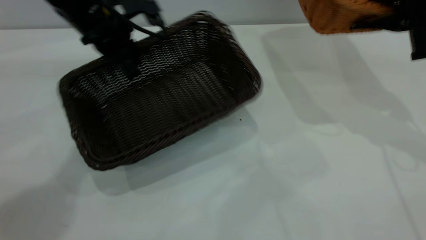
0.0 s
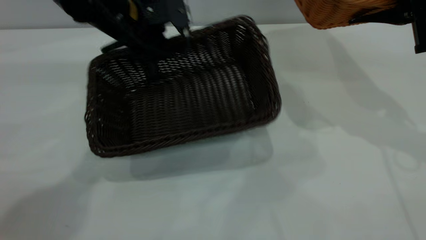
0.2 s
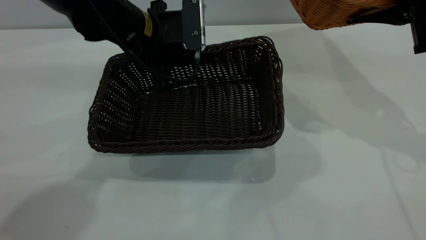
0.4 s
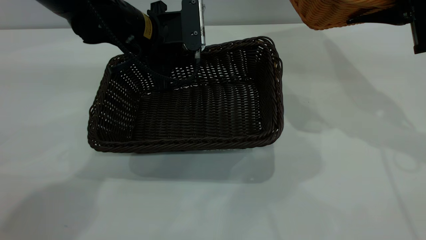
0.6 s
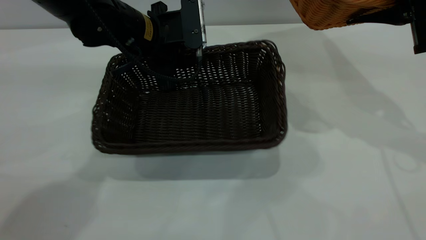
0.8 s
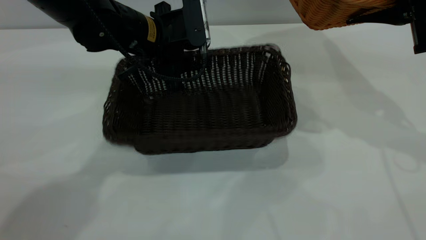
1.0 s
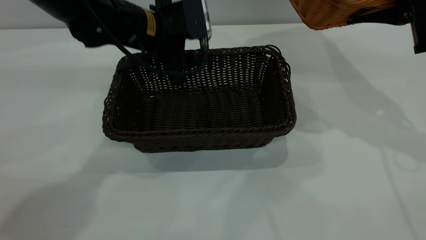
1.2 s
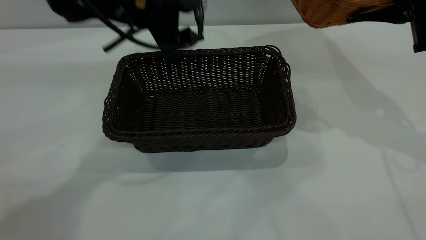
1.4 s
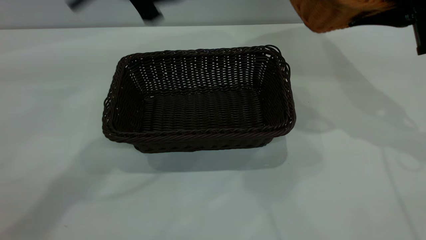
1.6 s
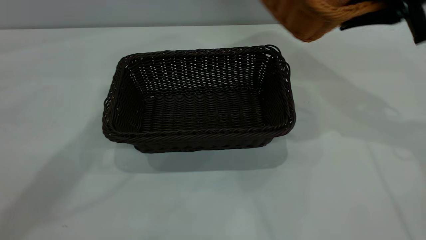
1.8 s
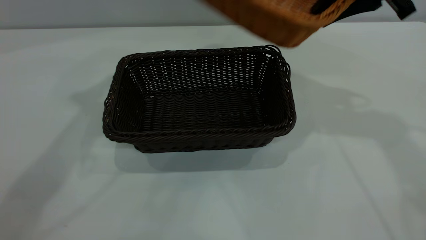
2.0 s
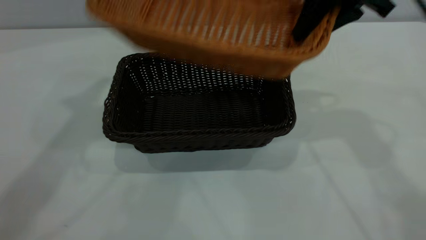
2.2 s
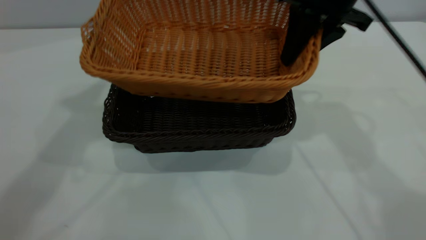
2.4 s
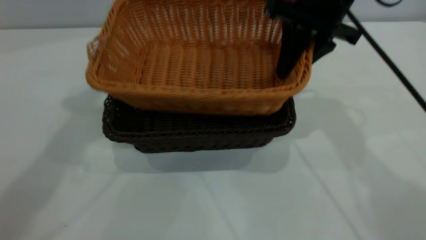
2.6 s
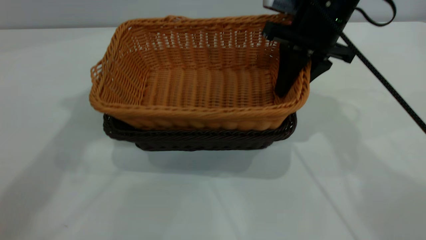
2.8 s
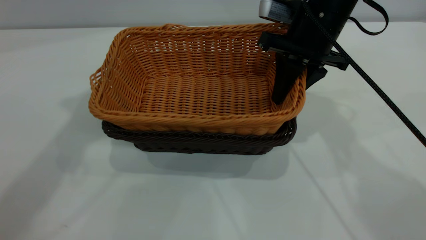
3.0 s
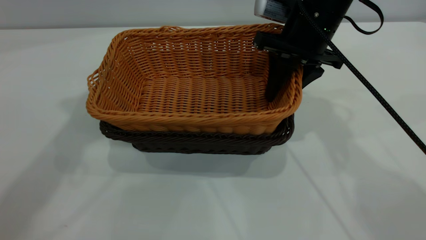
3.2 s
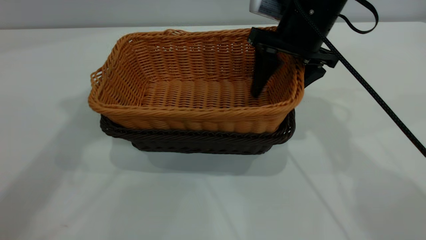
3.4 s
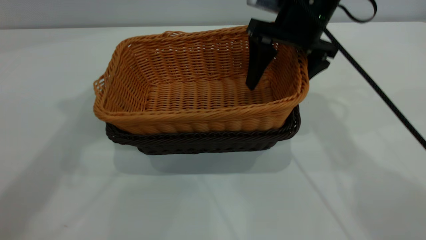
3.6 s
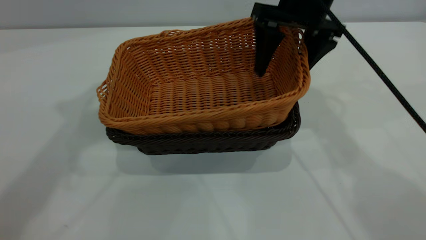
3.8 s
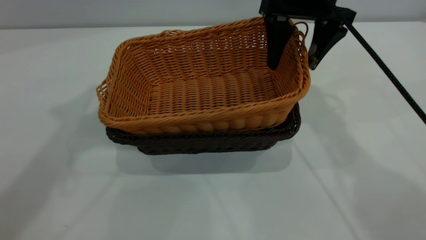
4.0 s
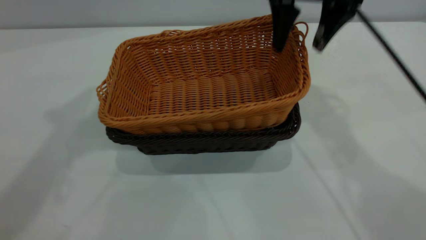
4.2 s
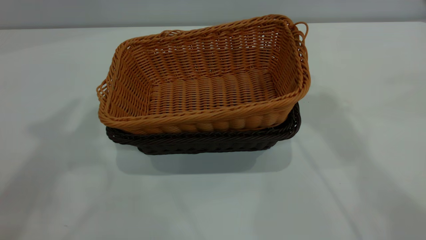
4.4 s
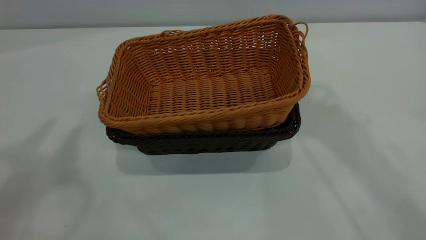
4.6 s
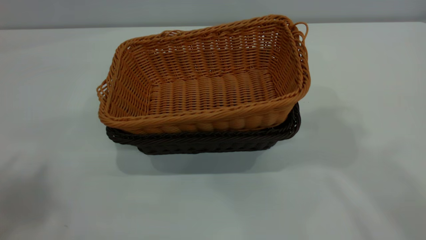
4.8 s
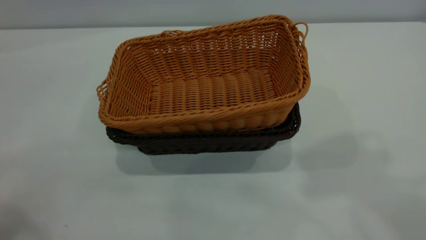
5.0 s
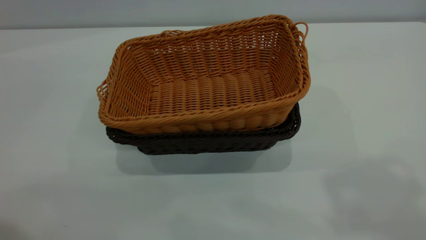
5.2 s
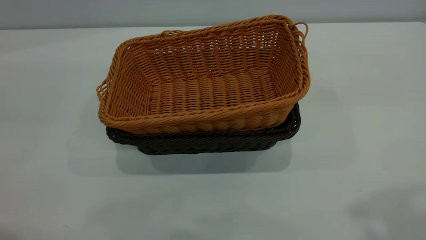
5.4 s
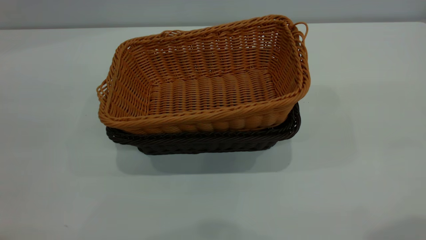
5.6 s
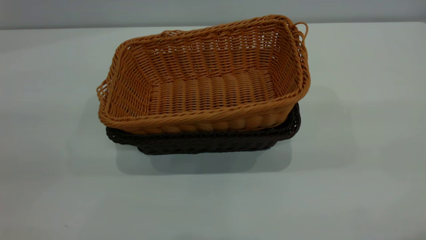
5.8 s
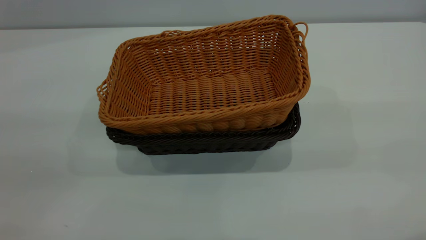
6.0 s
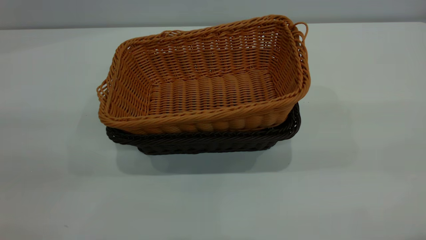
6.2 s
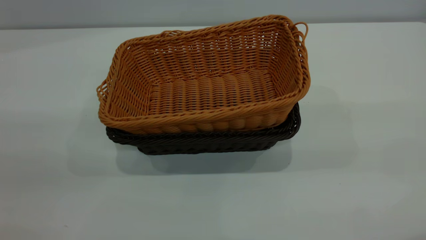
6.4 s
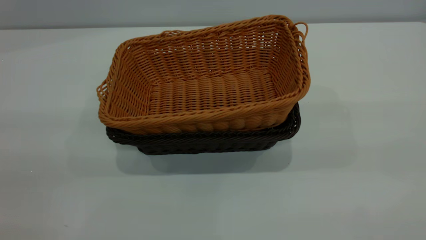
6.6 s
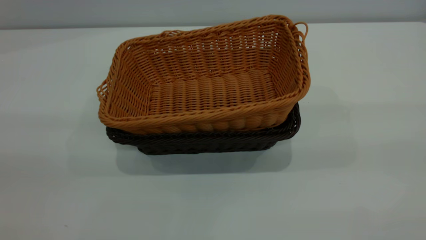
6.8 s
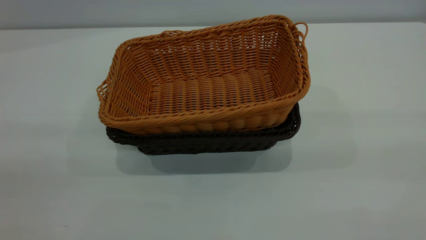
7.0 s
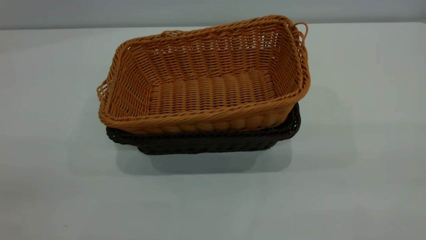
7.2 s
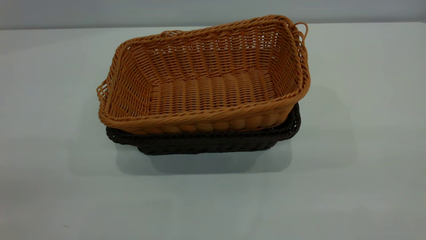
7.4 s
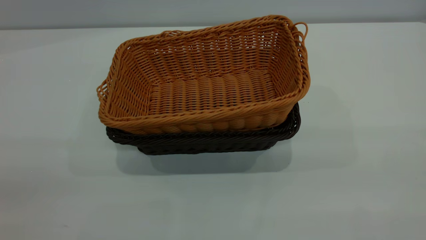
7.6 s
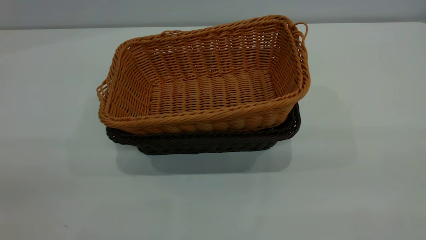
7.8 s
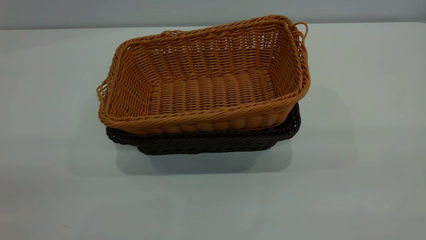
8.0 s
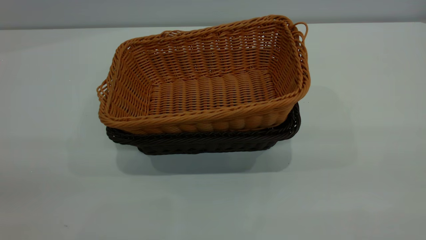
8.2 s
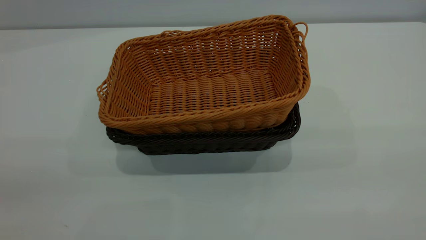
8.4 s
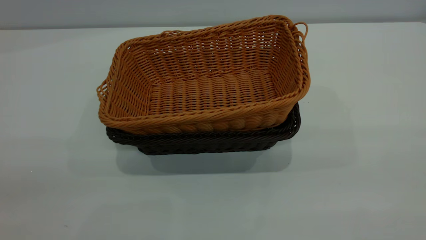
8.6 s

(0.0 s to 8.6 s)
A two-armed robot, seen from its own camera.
Task of the whole recording: the left gripper grasp the black basket and place it in the center of the table, the right gripper grasp the brown basket and place it inside the black one.
Step, 0.0 s - 1.4 s: Move the dark basket to the center of view.
Step, 1.6 s - 4.0 s: Place the light basket on the dark basket.
0.0 s - 1.4 s: The left gripper ends up some 5 cm from where it was, and opens its fingers.
1.4 s - 2.8 s: The left gripper travels upward and to the left by about 25 cm, while the right gripper moves to the left, about 15 cm.
2.8 s - 4.4 s: The right gripper goes about 20 cm upward, and opens up; the left gripper is displaced backward and upward by roughly 10 cm.
7.2 s - 8.6 s: Both grippers stay put.
